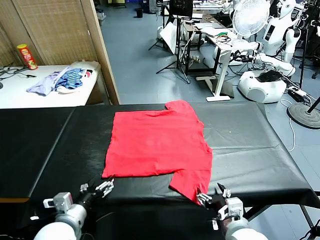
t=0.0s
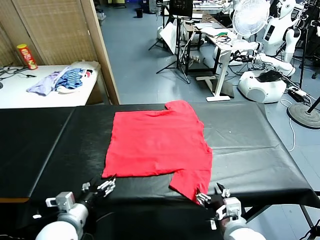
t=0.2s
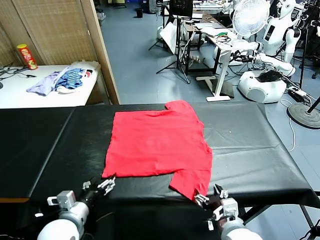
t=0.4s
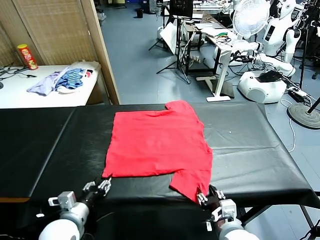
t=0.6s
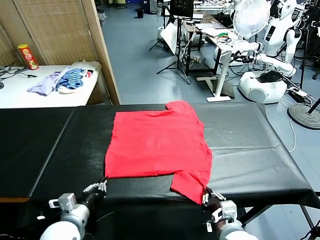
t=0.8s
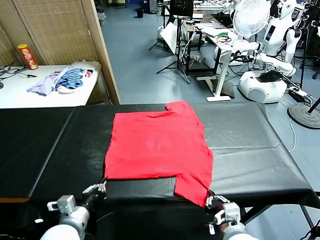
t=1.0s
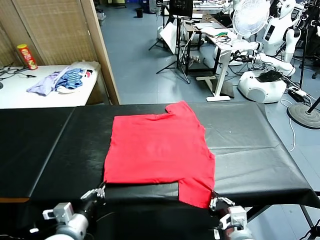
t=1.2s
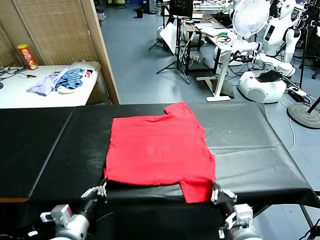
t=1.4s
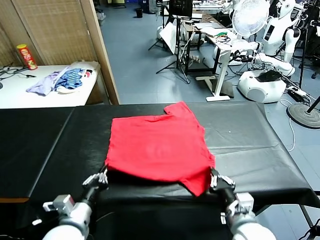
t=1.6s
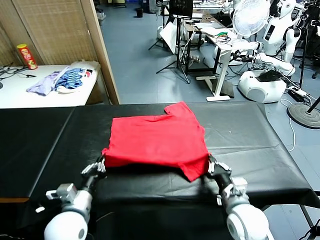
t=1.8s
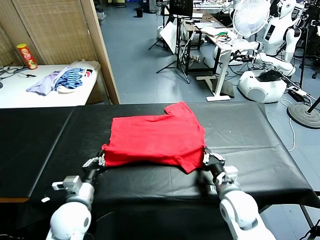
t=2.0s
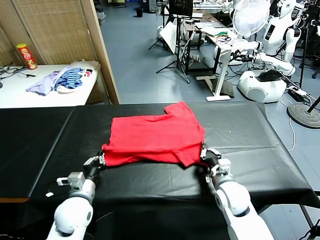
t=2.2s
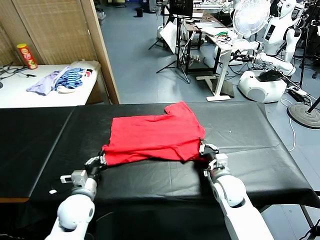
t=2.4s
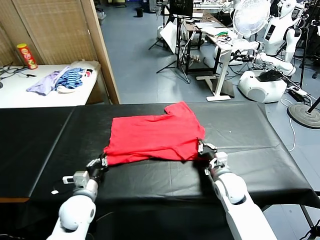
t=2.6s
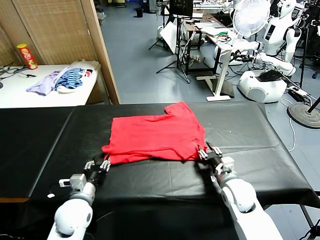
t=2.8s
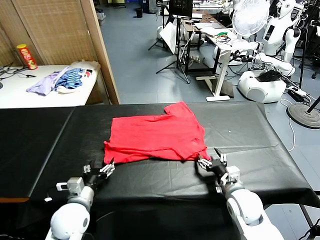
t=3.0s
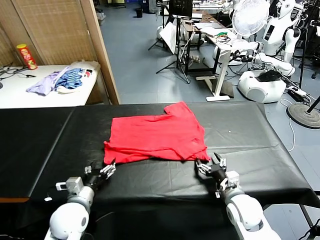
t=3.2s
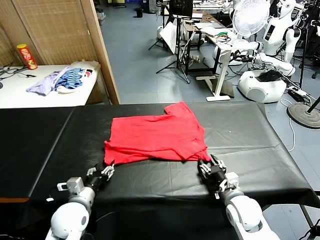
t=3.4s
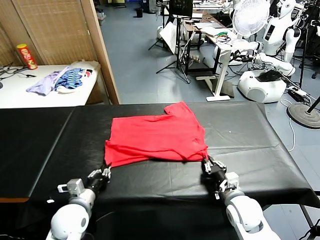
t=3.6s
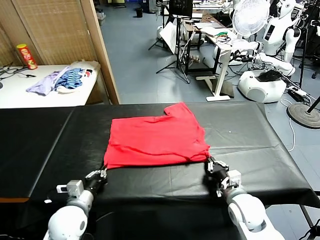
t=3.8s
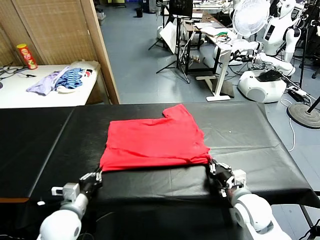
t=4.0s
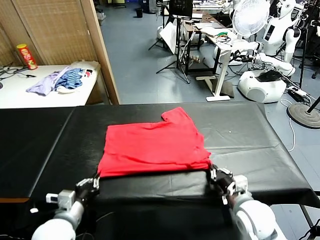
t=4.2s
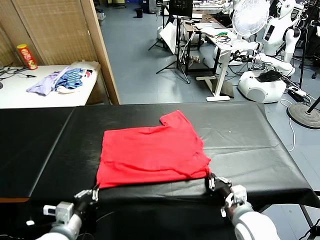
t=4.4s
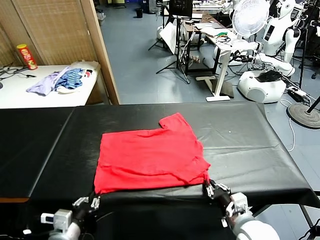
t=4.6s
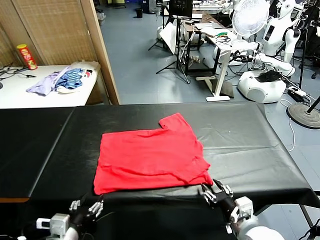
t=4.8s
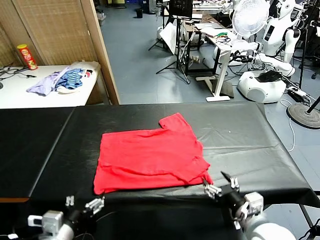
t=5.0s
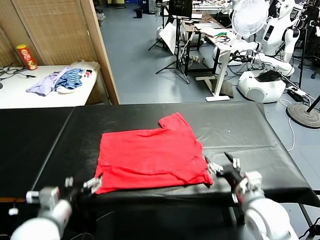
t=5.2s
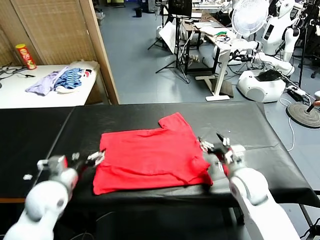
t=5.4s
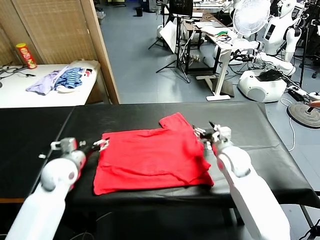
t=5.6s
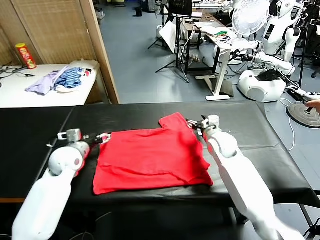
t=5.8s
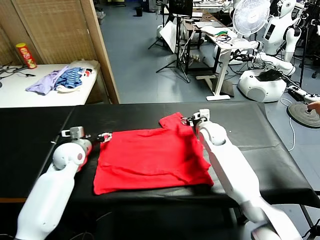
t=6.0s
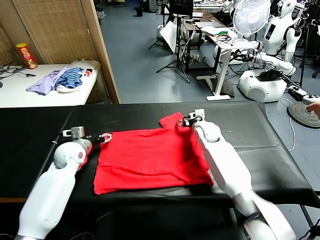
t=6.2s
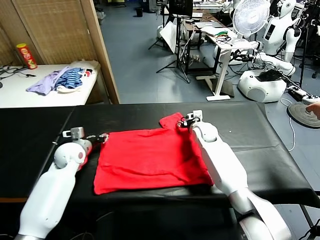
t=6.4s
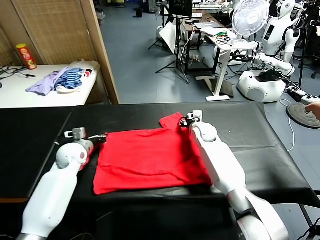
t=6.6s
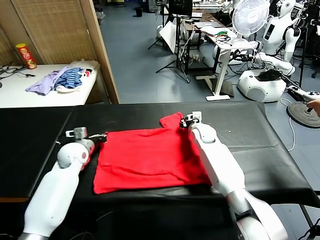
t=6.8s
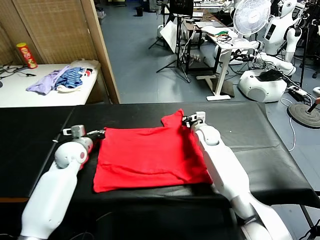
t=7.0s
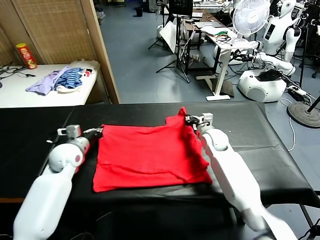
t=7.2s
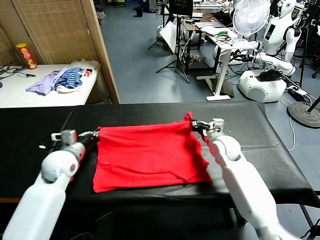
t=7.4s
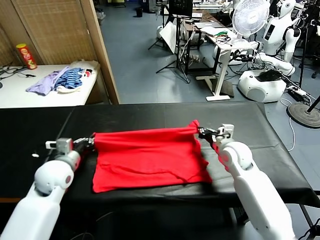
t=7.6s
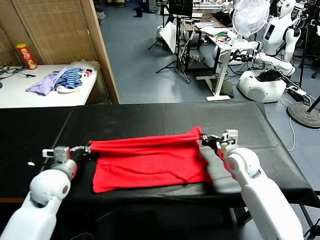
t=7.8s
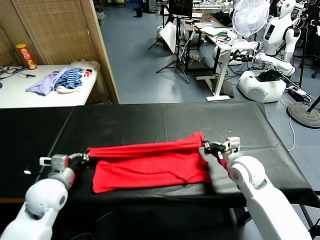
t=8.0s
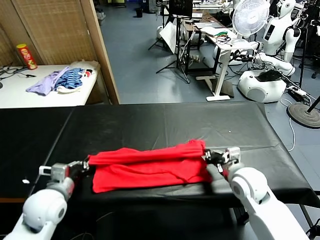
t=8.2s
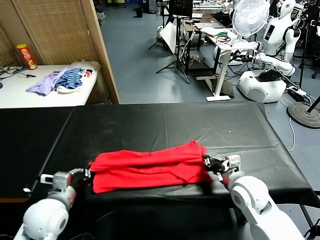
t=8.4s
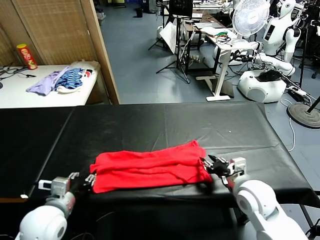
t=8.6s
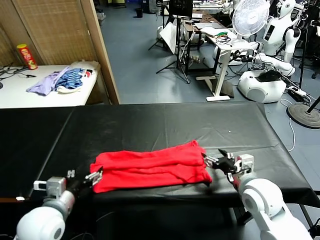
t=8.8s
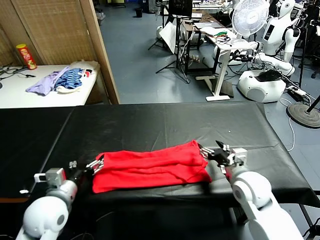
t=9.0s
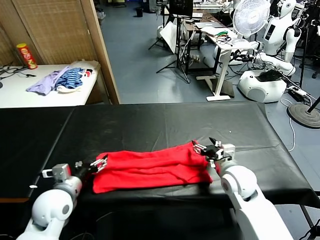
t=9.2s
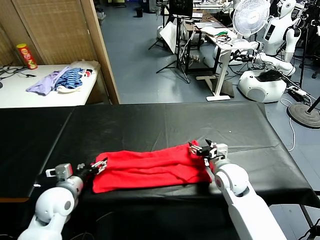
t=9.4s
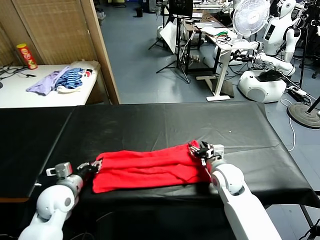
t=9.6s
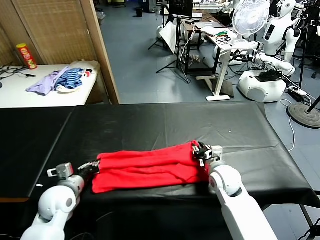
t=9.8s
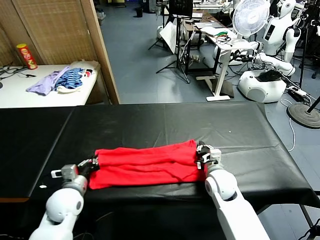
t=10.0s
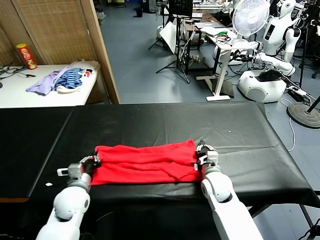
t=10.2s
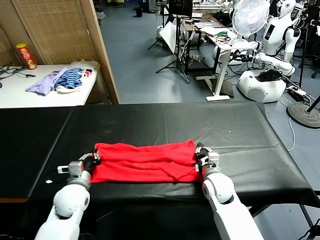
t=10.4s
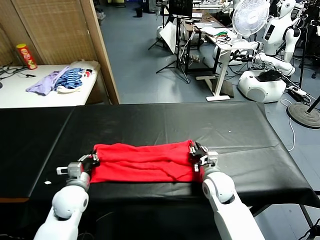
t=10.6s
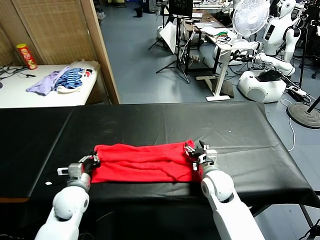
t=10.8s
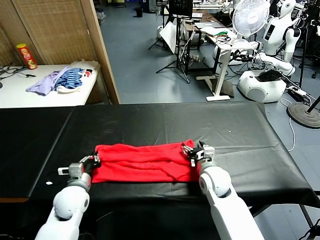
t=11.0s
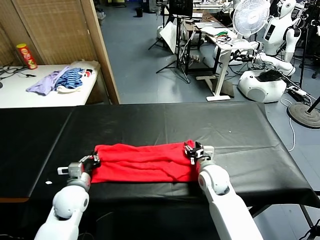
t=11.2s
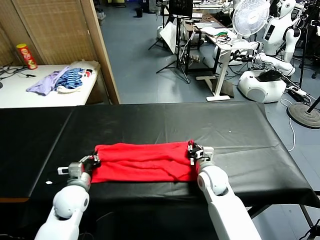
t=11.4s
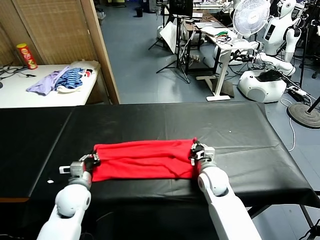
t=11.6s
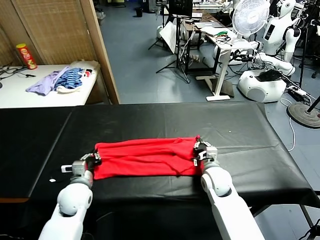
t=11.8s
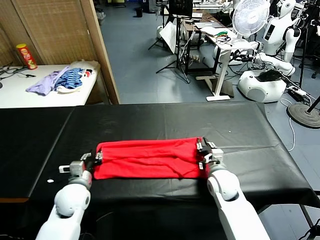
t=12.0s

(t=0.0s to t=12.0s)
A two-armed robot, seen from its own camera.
Task of the whole recording: fold and organize the clothes.
Step, t=0.0s - t=0.8s: use both grippers simultaneously to clamp the lower edge of the clothing fabric.
Step, t=1.0s - t=2.8s: use both grippers to drag the lower edge of the fabric forward and fold it over the upper edge.
Step, t=3.0s - t=4.8s: Drag the clothes downward with both gripper.
Step, t=5.0s - t=6.6s: use both grippers simultaneously to clamp the upper edge of the clothing fabric.
Step, t=6.8s - t=8.6s: use both grippers to drag the upper edge of the fabric backward and fold it over the lower edge.
t=1.6s - t=3.0s: The left gripper goes roughly 5 cm forward, and opens up. The right gripper reaches about 10 cm forward, then returns, and opens.
t=3.0s - t=4.4s: Both grippers move backward, roughly 10 cm. The right gripper closes its fingers; the left gripper closes its fingers.
t=4.4s - t=6.0s: Both grippers travel together forward, about 30 cm. The left gripper opens its fingers, while the right gripper opens its fingers.
t=6.0s - t=7.6s: The left gripper is displaced backward by about 10 cm, and closes its fingers, while the right gripper moves backward and to the right, approximately 15 cm, and closes its fingers.
t=7.6s - t=9.0s: The two grippers go about 10 cm backward. The right gripper opens. Meanwhile the left gripper opens up.
t=9.0s - t=10.4s: The right gripper is displaced downward by about 5 cm, and closes up. The left gripper shifts some 10 cm downward and forward, and closes up.
t=10.4s - t=12.0s: The right gripper opens its fingers.

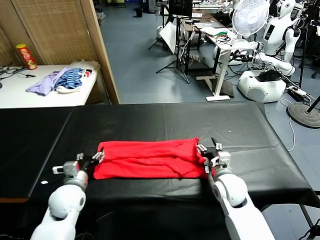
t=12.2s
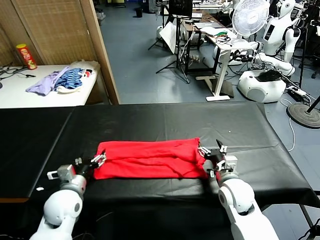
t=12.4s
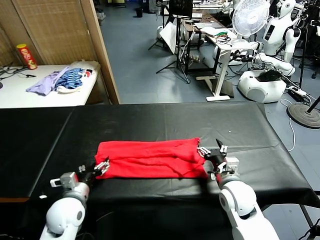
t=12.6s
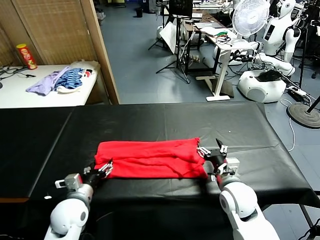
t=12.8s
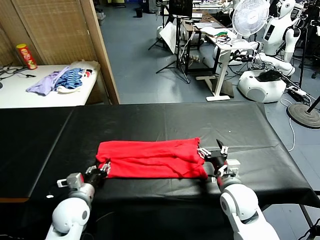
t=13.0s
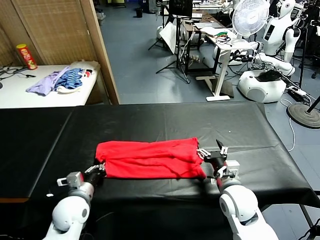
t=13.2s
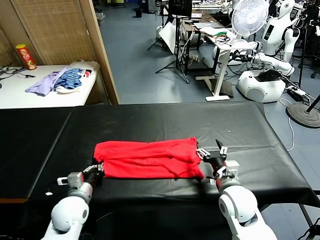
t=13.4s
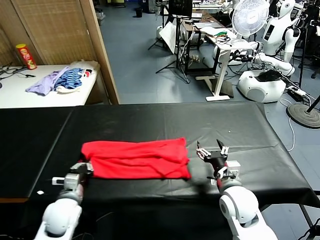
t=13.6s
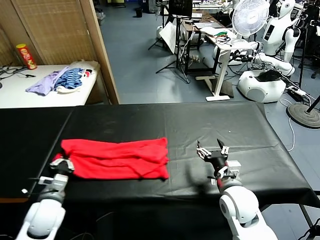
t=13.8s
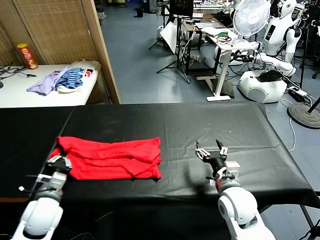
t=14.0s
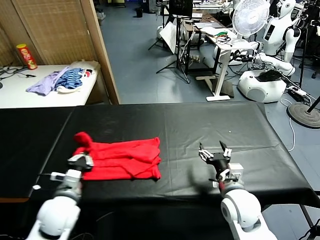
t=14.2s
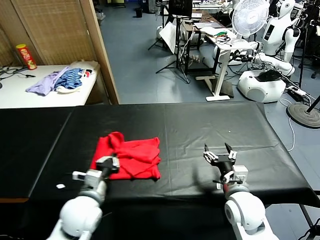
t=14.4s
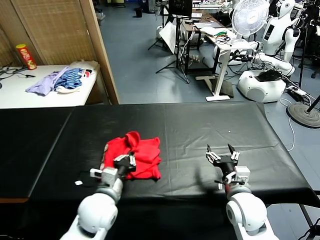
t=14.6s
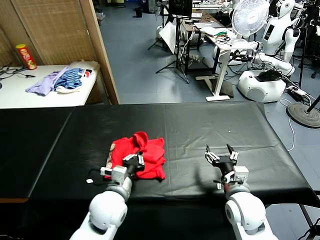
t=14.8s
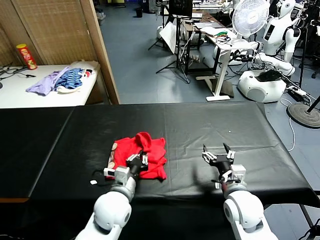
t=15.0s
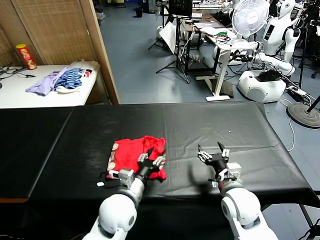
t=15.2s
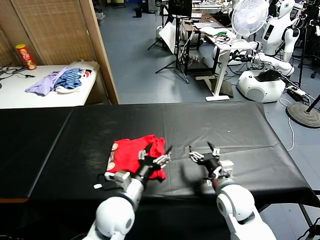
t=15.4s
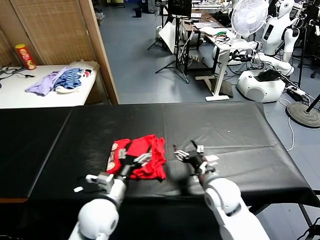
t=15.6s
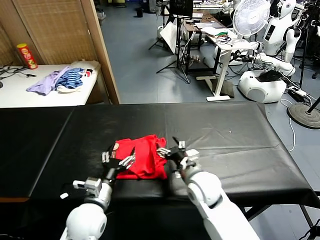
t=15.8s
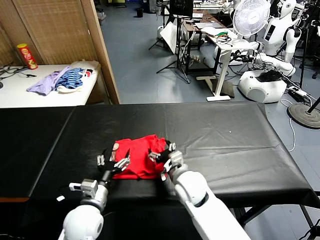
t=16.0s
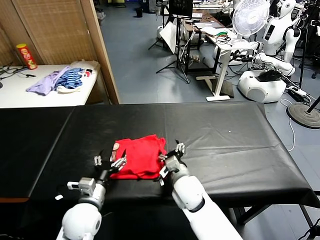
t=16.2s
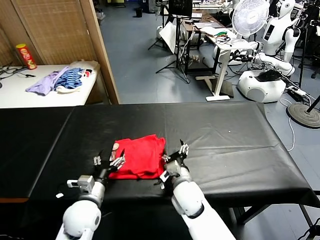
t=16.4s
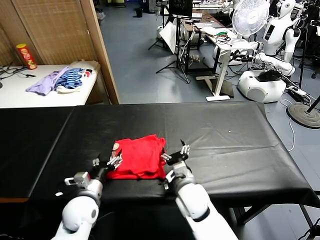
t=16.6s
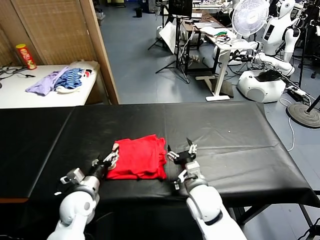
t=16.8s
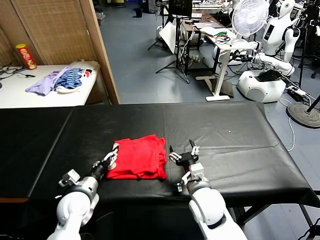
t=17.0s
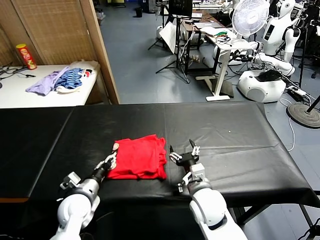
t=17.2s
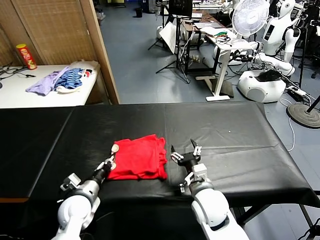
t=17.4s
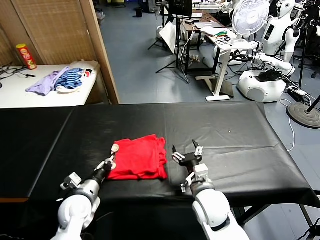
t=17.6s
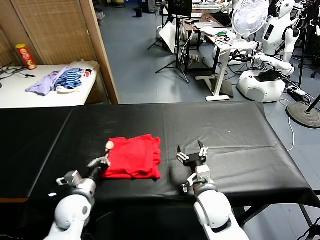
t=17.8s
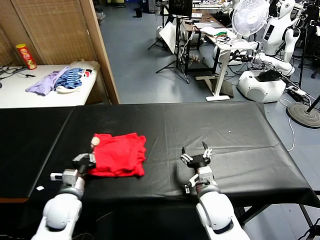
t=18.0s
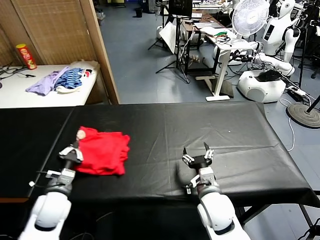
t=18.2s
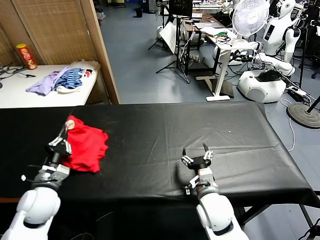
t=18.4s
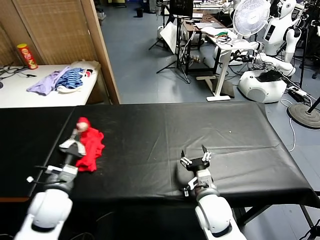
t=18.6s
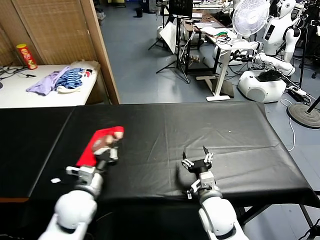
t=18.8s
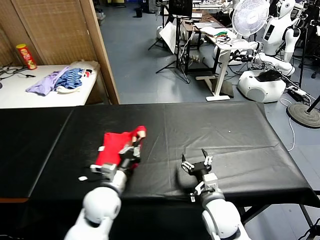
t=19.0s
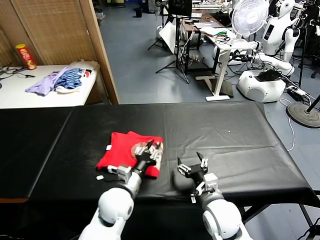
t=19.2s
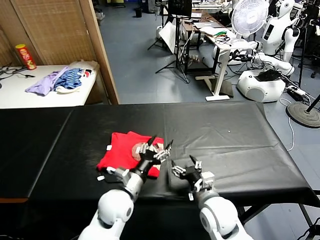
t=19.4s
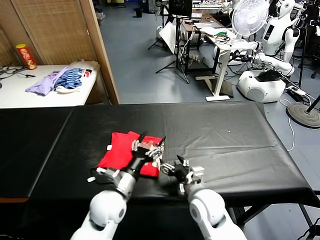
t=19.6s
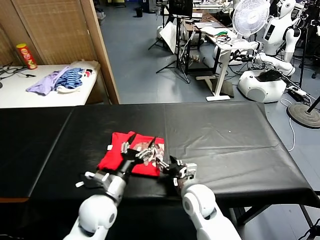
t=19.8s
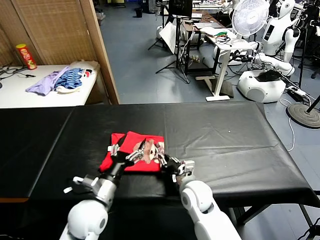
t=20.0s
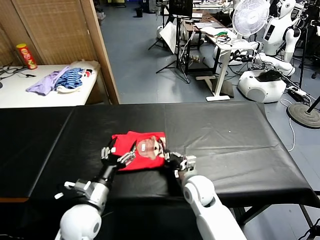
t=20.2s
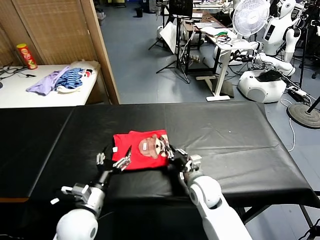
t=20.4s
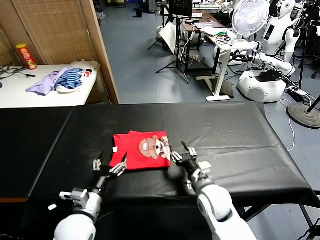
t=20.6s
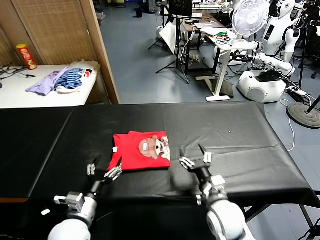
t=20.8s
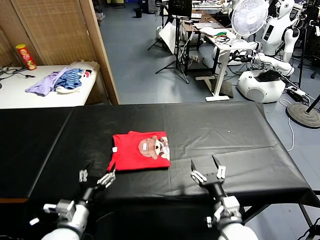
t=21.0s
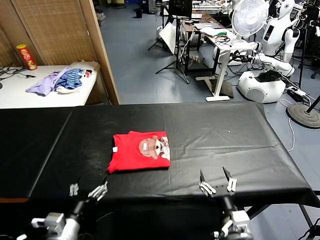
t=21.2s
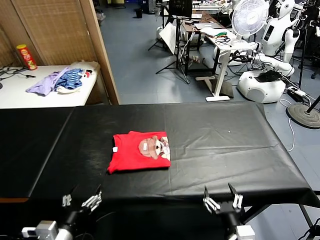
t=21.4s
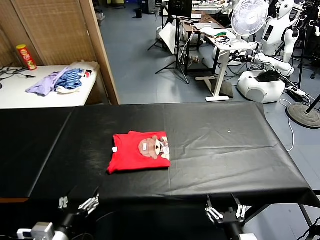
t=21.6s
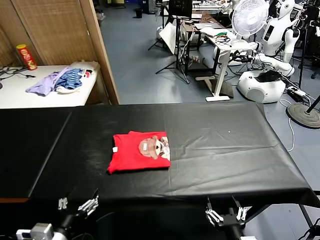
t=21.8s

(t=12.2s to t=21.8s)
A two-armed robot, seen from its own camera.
Task of the whole recording: fold and organize the clothes.
Step, t=13.6s - t=15.2s: use the left gripper to drag the left edge of the fabric to the left and folds it over the right edge.
Step, t=15.4s - t=19.2s: Flip the folded clothes over with left gripper.
Step, t=19.4s - t=20.4s: Drag the clothes to the center of the table.
t=12.2s - t=13.8s: The left gripper changes place by approximately 5 cm, and closes up, while the right gripper changes place by approximately 5 cm.
t=13.8s - t=15.4s: The left gripper goes about 20 cm to the right, and opens up.
t=15.4s - t=17.0s: The left gripper moves to the left and downward, roughly 15 cm; the right gripper heads to the left, covering some 10 cm.
t=17.0s - t=18.6s: The left gripper heads upward, covering roughly 10 cm, and closes up.
t=18.6s - t=20.2s: The right gripper heads forward, covering some 10 cm, and closes. Meanwhile the left gripper goes approximately 10 cm to the right, and opens.
t=20.2s - t=21.8s: The right gripper shifts roughly 25 cm backward, and opens up, while the left gripper shifts about 15 cm backward and to the left.
